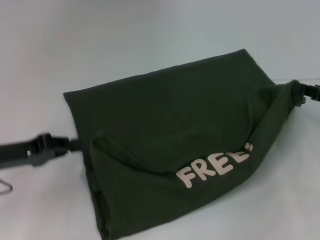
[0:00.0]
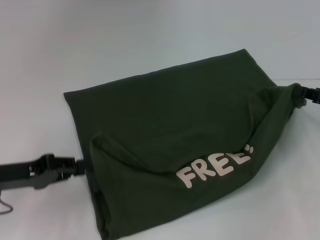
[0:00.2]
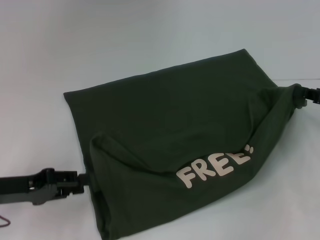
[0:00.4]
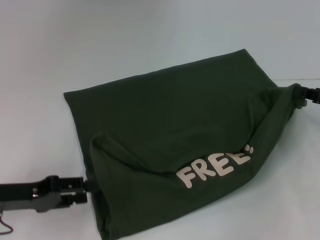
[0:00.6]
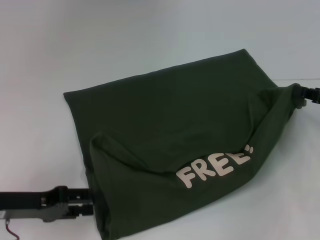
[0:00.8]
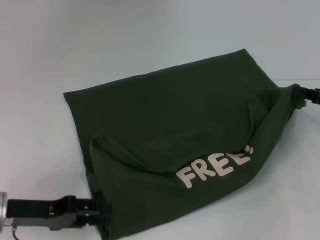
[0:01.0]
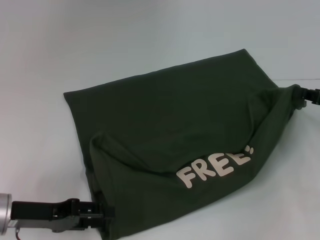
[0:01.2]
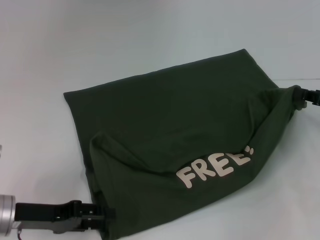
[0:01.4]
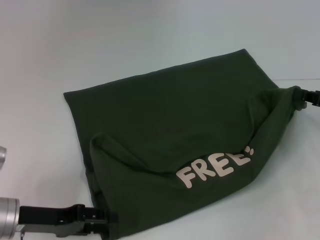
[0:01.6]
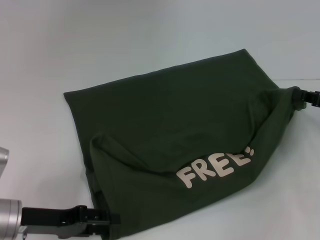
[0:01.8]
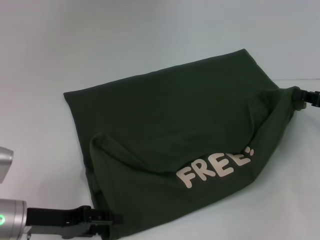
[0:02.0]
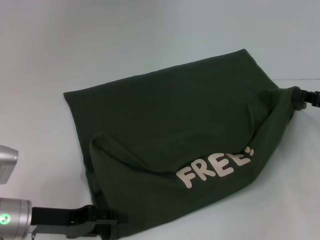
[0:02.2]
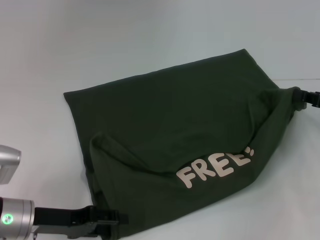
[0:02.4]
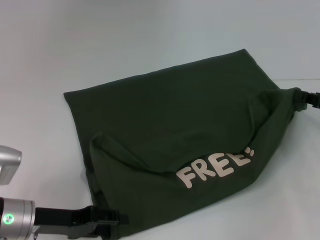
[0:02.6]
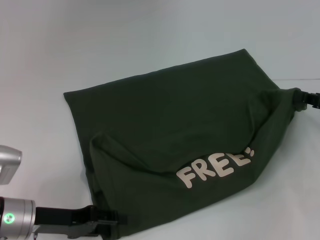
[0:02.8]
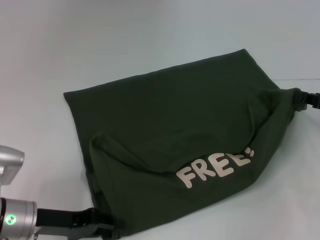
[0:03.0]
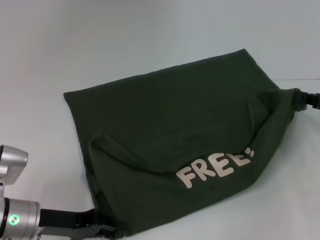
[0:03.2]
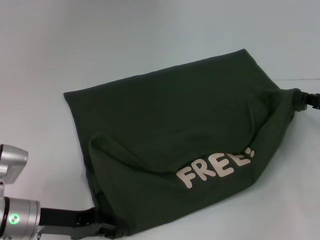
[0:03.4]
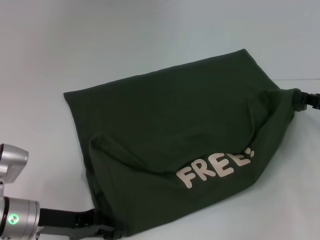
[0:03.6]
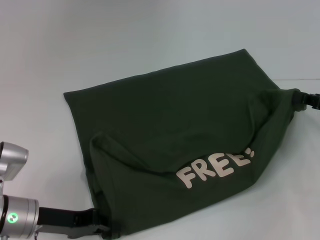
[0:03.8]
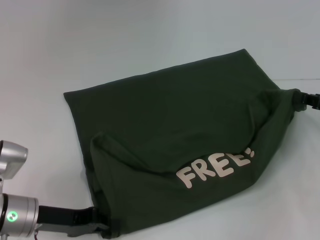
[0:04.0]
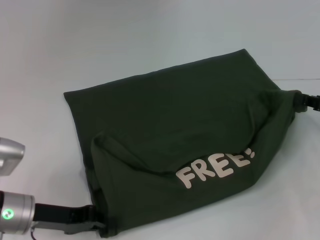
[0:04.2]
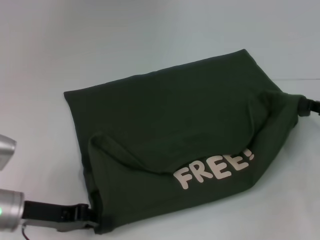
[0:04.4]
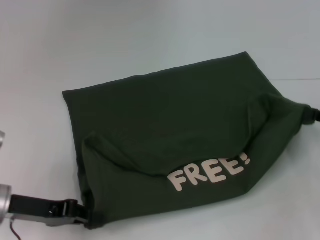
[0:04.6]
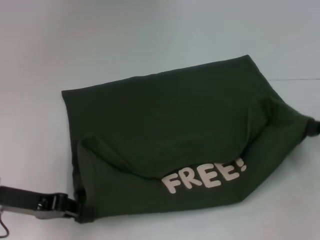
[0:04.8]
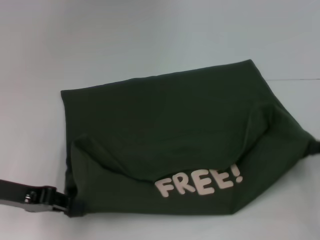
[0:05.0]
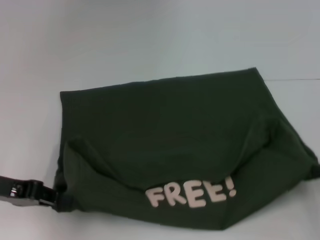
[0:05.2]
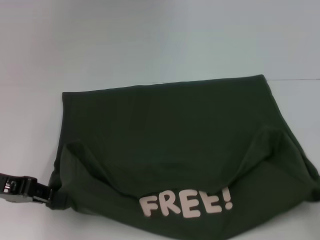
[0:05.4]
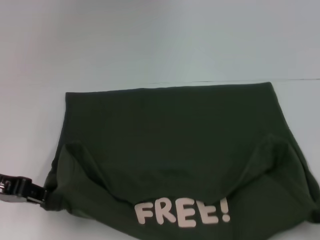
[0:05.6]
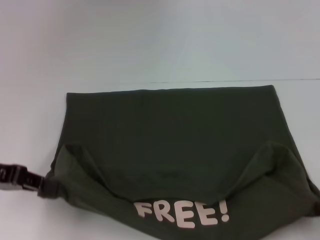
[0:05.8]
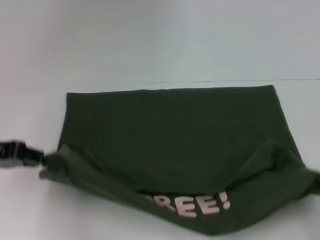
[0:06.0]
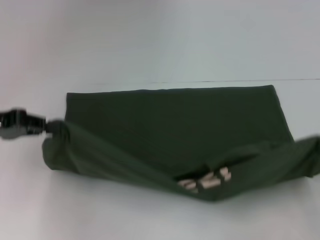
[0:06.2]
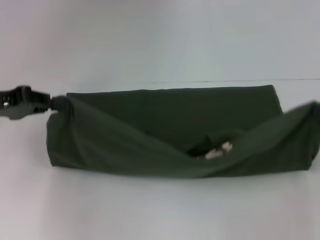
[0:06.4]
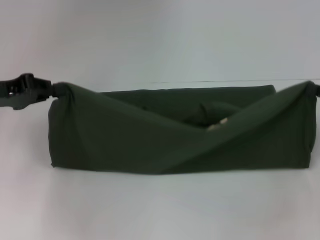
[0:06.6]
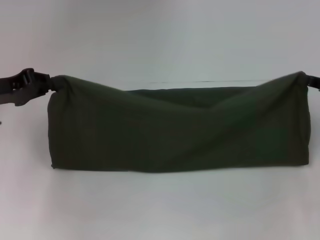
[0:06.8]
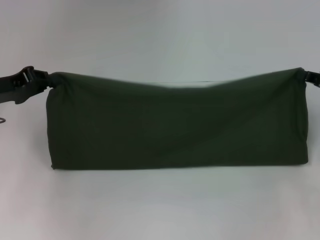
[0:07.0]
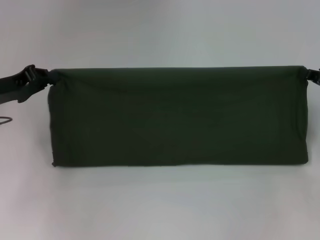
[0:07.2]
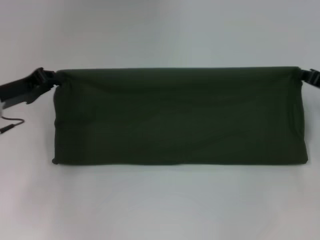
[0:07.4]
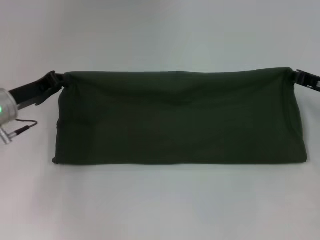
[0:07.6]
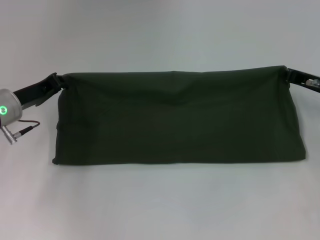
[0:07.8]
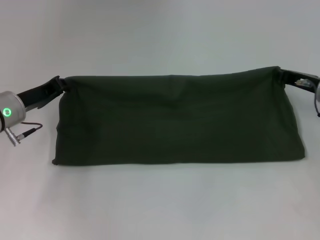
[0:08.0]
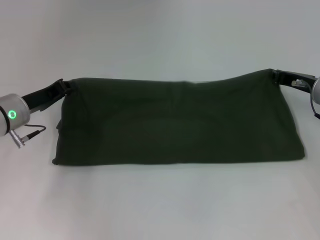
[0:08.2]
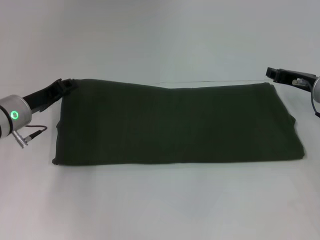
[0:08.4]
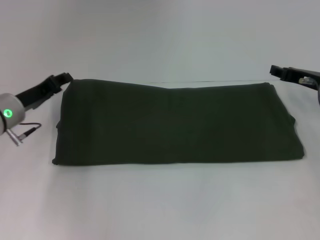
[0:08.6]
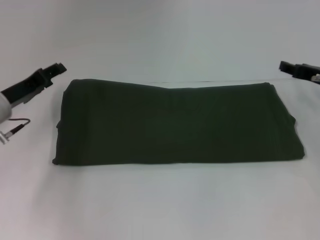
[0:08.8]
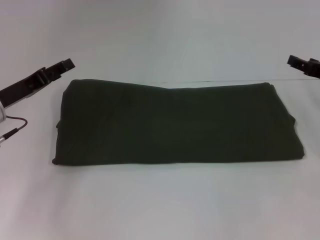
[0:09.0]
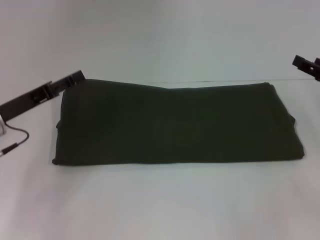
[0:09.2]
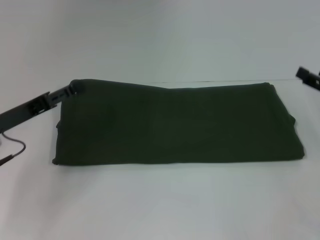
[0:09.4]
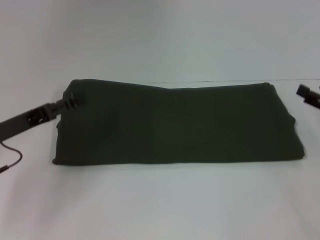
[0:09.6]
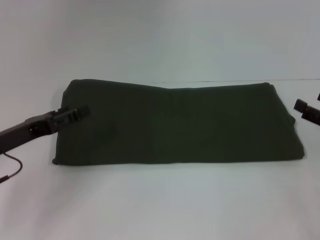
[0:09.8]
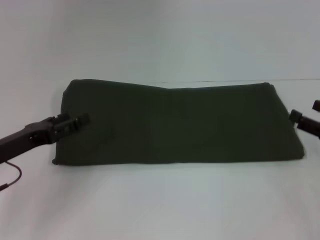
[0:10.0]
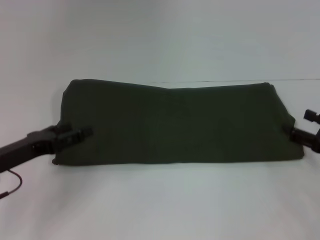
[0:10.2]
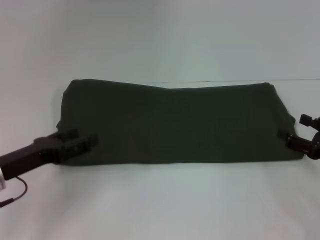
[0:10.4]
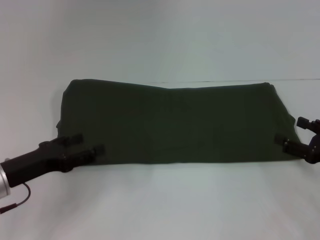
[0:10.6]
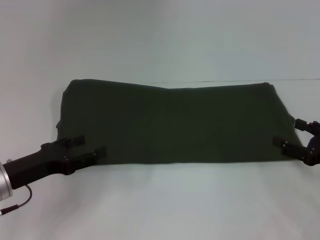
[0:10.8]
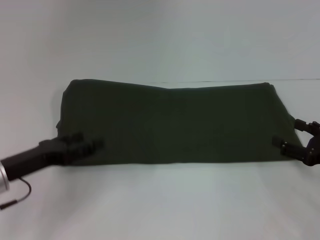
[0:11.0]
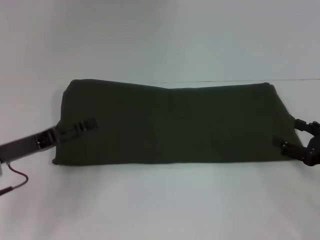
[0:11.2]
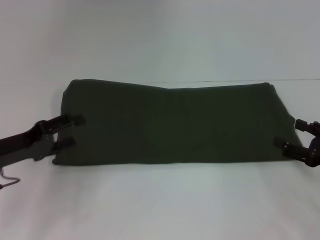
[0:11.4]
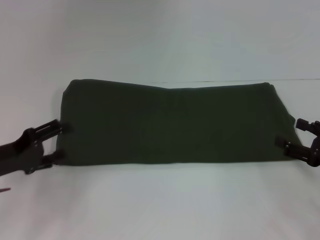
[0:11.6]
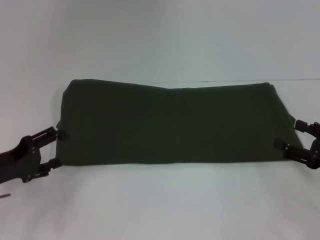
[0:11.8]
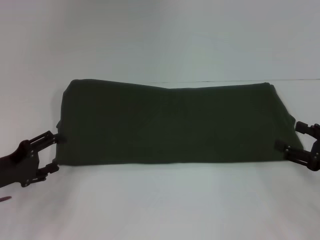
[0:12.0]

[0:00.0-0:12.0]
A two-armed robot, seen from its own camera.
Step, 0:00.0 to 0:05.8: Pull the clothes with your left hand.
Step, 0:00.0 to 0:05.8: Pull the clothes with your right hand.
Step, 0:06.0 to 0:08.4: Fold the clothes with your right hand.
0:00.0 to 0:01.6: The left gripper is displaced downward by some 5 cm, and opens its fingers.
0:01.6 to 0:03.0: There are only small adjustments of the grippers.
0:03.0 to 0:04.4: The left gripper closes.
0:04.4 to 0:06.0: The right gripper heads backward, covering roughly 10 cm, while the left gripper travels upward and to the left by approximately 15 cm.
0:06.0 to 0:07.6: The left gripper is displaced forward and downward by about 10 cm. The right gripper goes about 20 cm forward.
0:07.6 to 0:09.0: The right gripper opens up, while the left gripper opens its fingers.
0:09.0 to 0:10.4: The left gripper is displaced backward by roughly 10 cm. The right gripper moves backward and downward, about 15 cm.

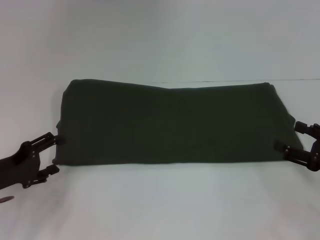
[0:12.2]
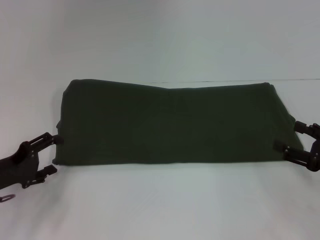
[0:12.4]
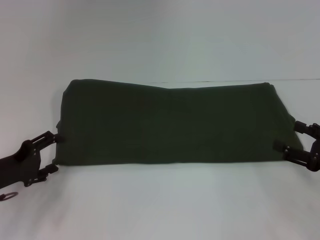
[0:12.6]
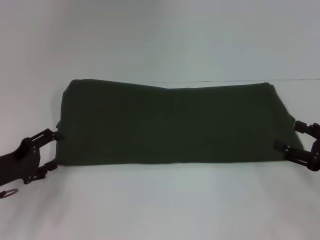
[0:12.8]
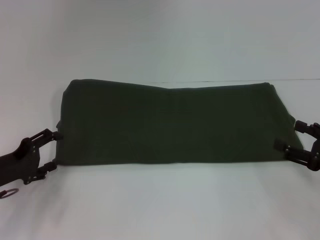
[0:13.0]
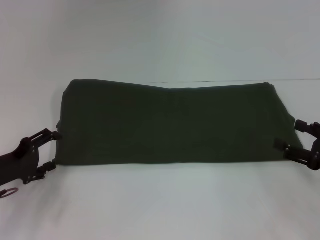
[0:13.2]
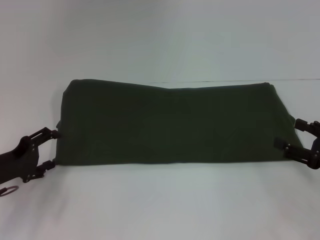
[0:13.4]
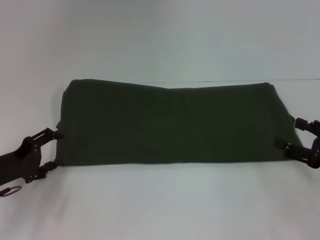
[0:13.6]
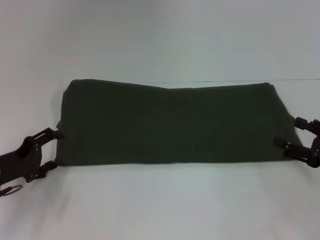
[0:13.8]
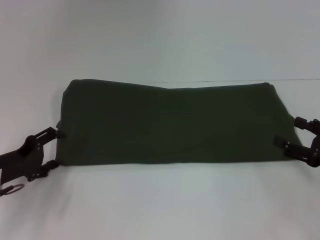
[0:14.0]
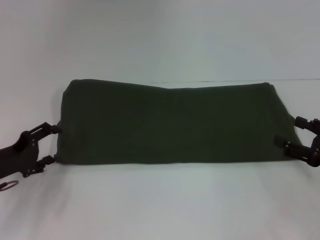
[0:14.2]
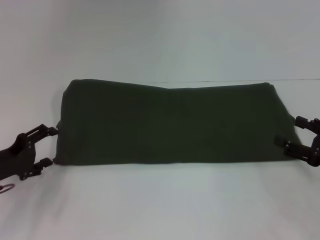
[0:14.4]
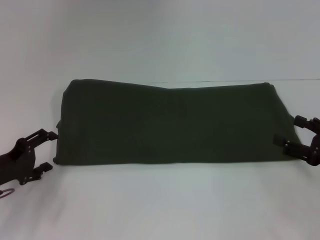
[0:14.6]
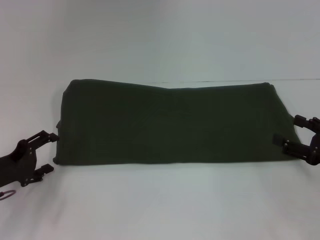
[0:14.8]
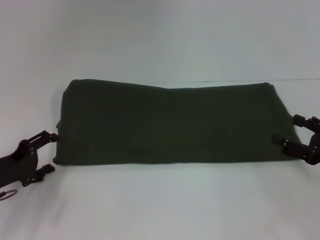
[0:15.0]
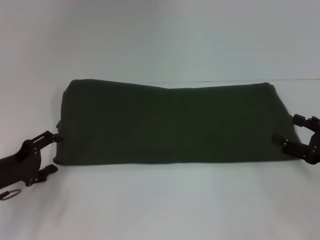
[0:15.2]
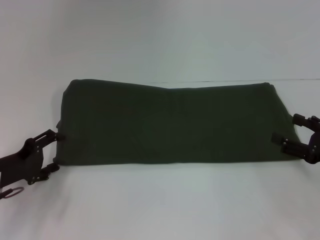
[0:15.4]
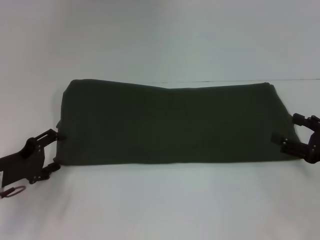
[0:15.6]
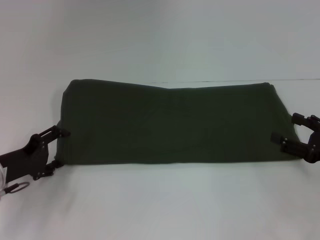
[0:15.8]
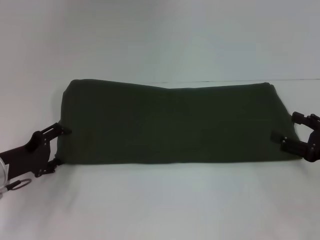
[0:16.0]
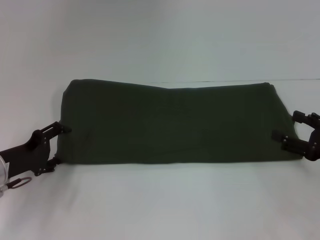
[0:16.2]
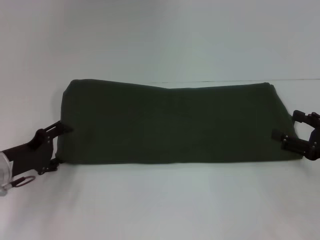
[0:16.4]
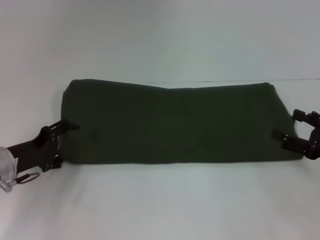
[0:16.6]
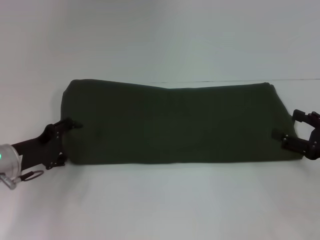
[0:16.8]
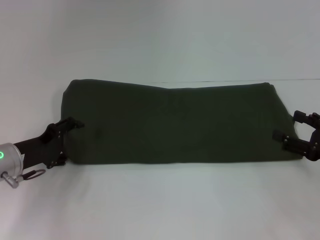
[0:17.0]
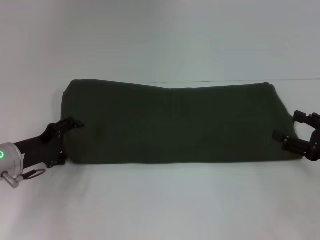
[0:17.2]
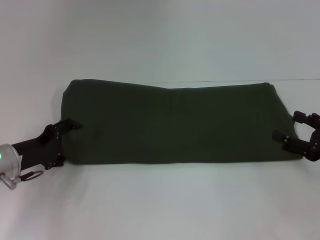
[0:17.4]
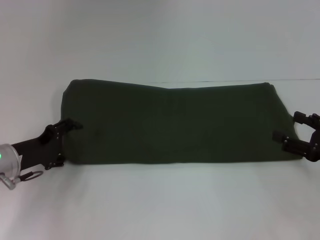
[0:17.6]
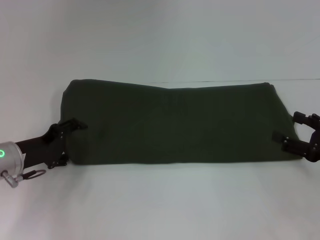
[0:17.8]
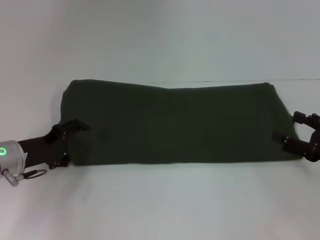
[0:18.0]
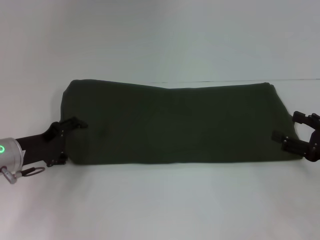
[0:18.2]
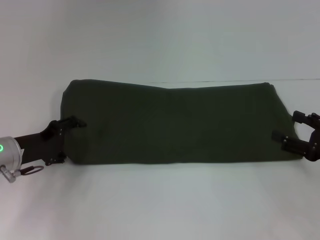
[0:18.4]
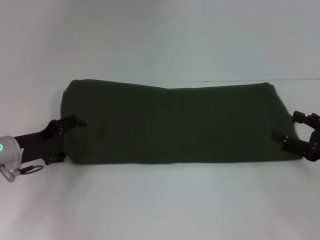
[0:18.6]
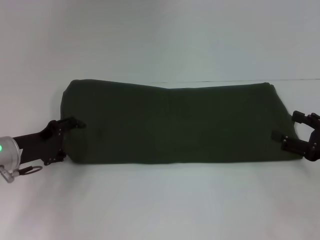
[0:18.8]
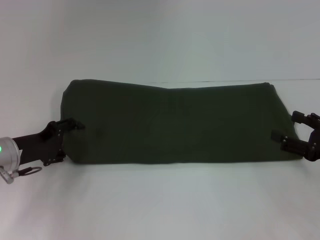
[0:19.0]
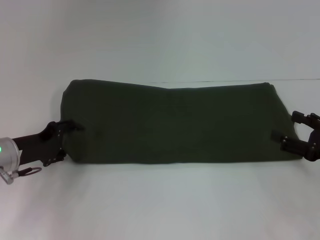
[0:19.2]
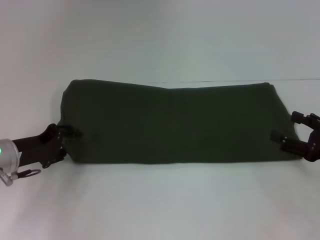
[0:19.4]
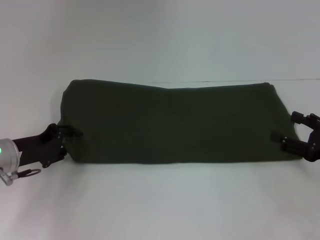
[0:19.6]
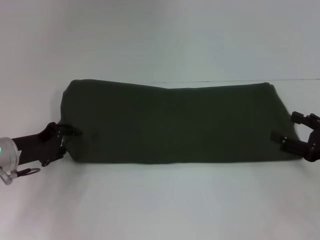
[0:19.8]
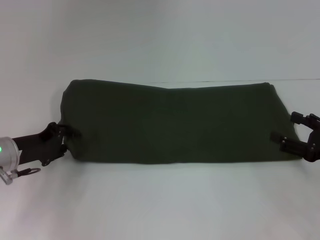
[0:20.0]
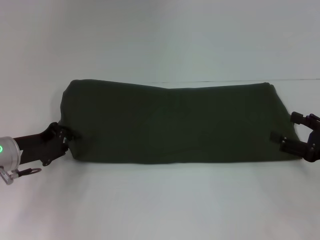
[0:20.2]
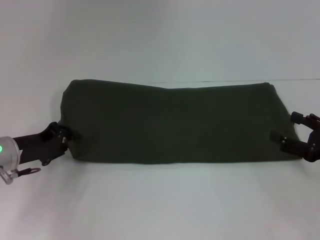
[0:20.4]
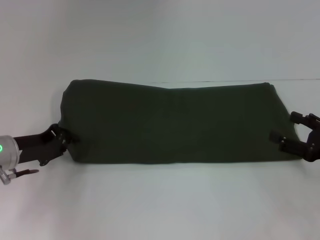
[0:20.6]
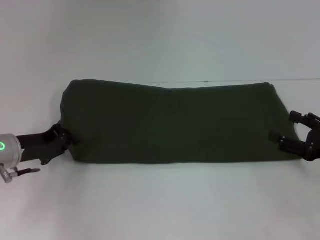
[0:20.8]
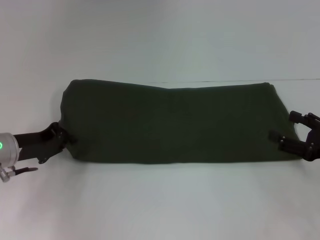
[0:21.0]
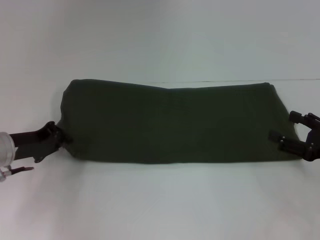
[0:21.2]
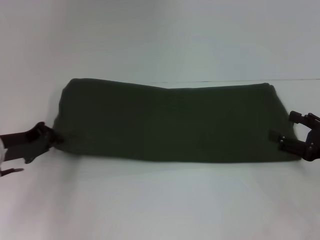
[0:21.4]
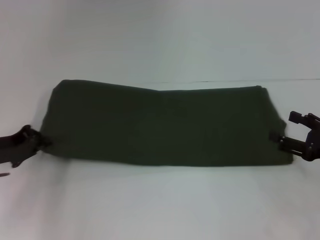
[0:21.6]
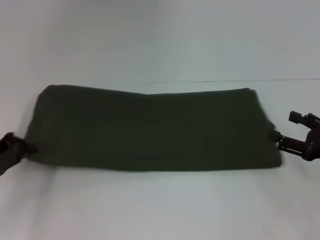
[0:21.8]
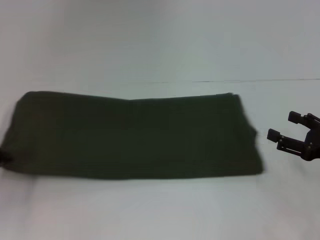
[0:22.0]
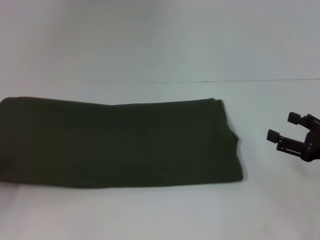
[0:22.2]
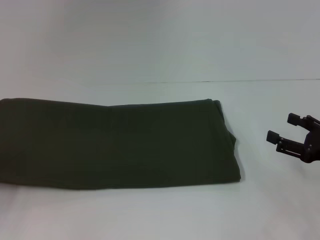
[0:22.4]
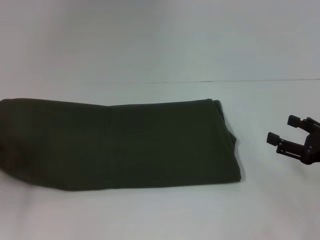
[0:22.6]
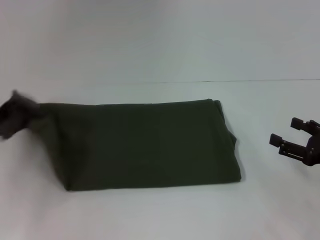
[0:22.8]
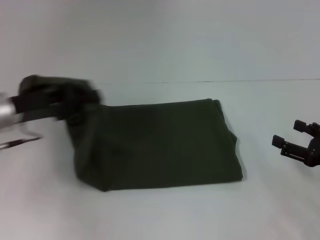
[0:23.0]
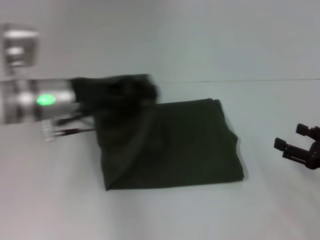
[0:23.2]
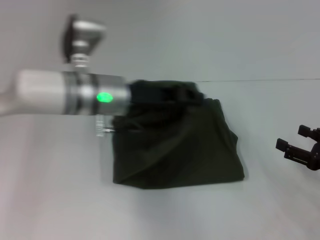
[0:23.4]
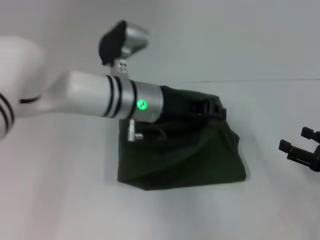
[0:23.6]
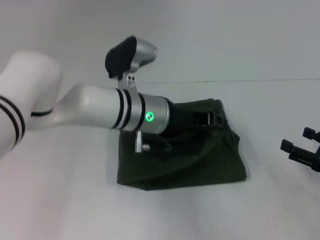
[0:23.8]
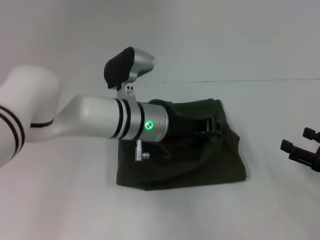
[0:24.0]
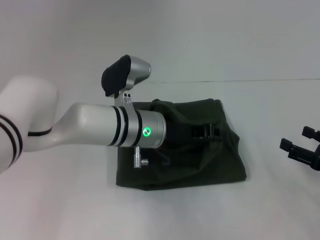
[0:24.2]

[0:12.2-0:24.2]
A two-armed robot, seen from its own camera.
0:12.2 to 0:13.8: The grippers move only a little.
0:13.8 to 0:15.2: The two grippers keep their place.
0:15.2 to 0:18.2: The grippers move only a little.
0:18.2 to 0:19.8: The left gripper closes up.
0:19.8 to 0:21.2: The left gripper closes.
0:21.2 to 0:22.6: The left gripper heads to the left and backward, covering roughly 10 cm.
0:22.6 to 0:24.2: The left gripper moves to the right, some 35 cm.
